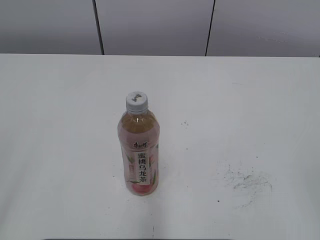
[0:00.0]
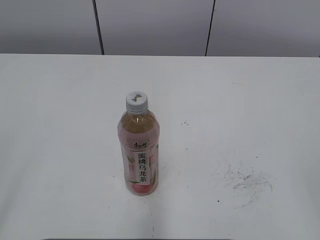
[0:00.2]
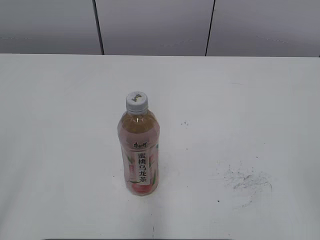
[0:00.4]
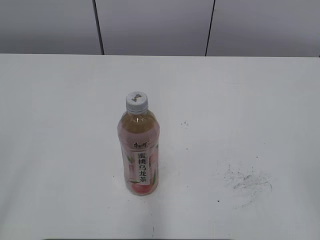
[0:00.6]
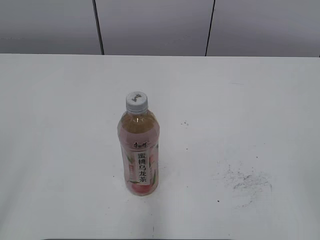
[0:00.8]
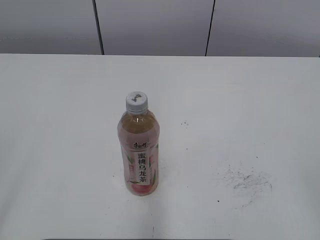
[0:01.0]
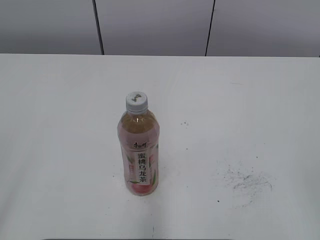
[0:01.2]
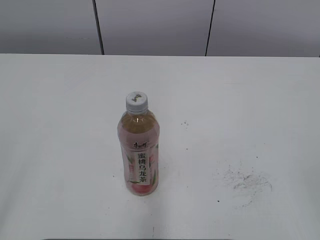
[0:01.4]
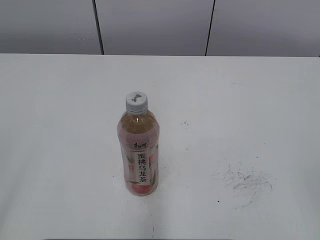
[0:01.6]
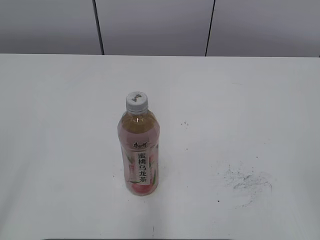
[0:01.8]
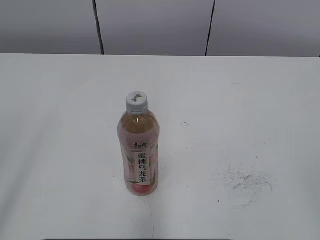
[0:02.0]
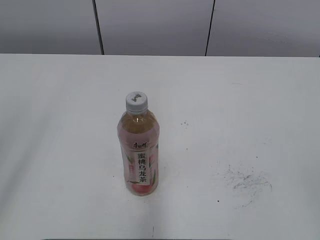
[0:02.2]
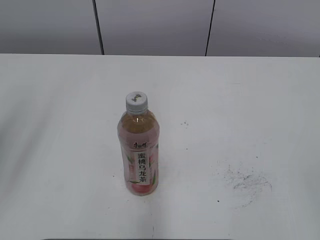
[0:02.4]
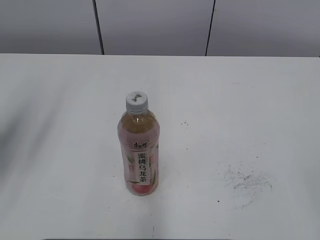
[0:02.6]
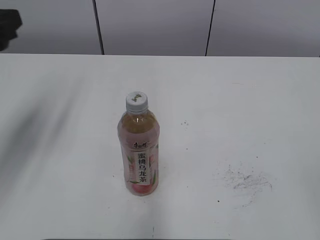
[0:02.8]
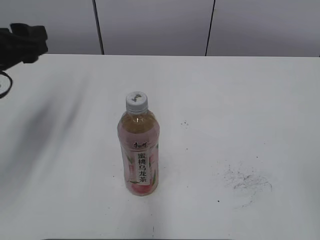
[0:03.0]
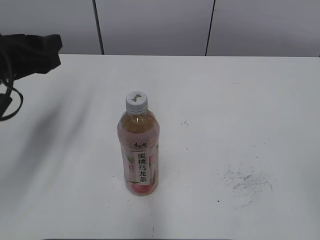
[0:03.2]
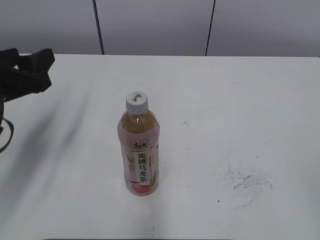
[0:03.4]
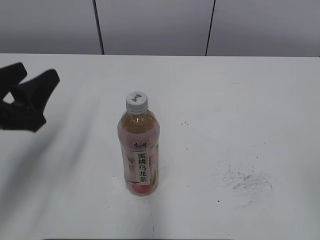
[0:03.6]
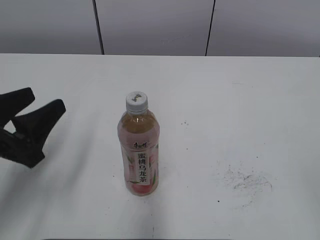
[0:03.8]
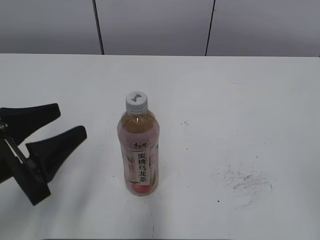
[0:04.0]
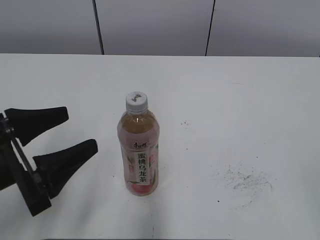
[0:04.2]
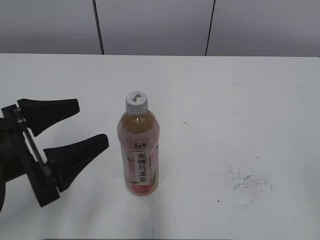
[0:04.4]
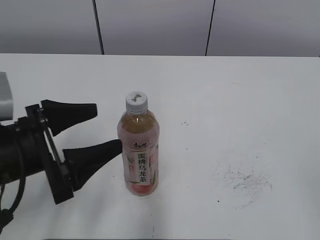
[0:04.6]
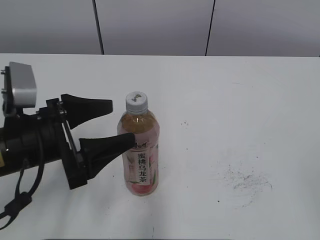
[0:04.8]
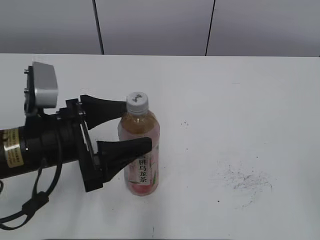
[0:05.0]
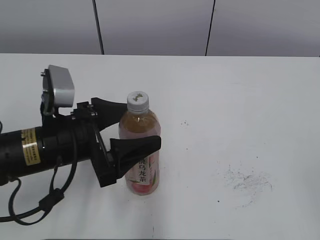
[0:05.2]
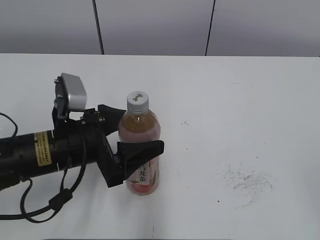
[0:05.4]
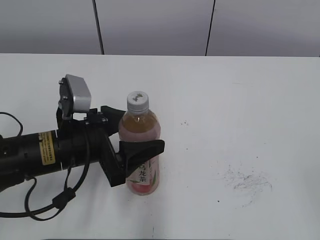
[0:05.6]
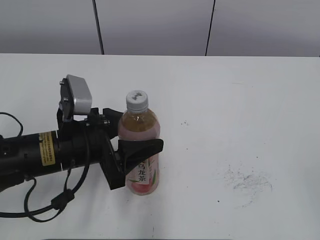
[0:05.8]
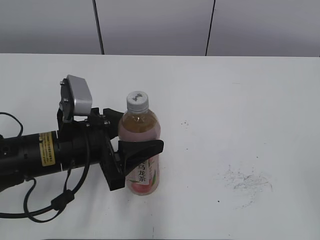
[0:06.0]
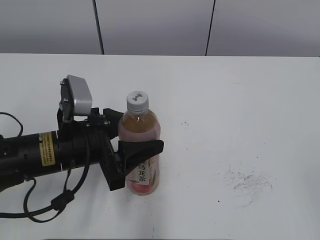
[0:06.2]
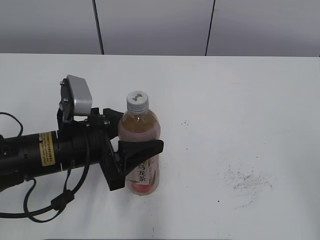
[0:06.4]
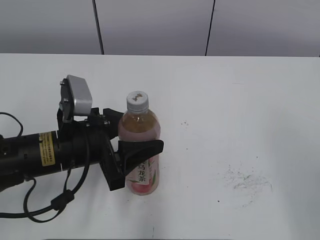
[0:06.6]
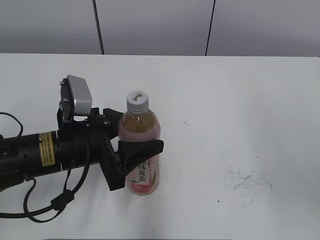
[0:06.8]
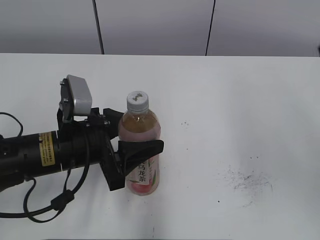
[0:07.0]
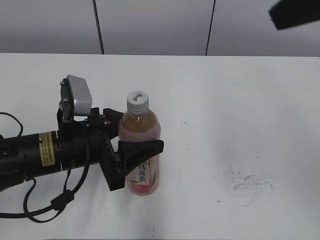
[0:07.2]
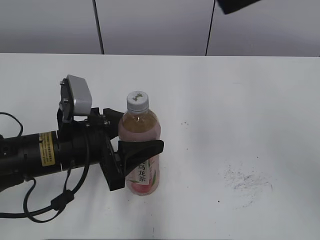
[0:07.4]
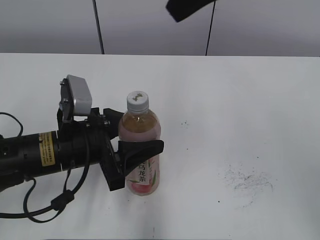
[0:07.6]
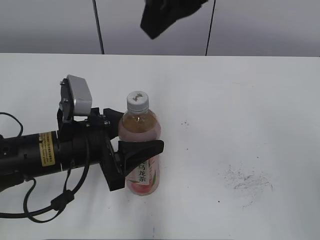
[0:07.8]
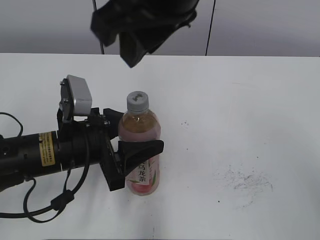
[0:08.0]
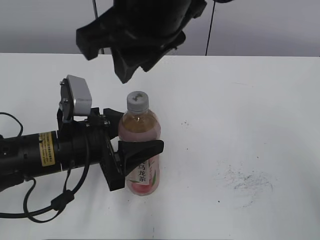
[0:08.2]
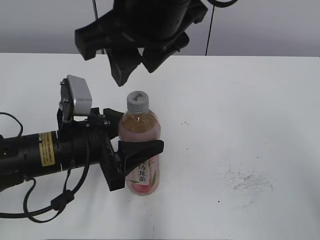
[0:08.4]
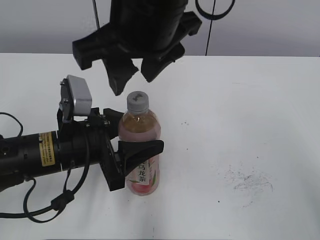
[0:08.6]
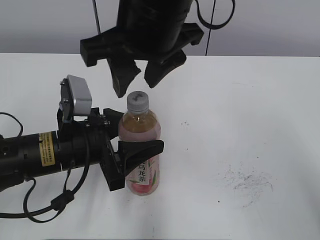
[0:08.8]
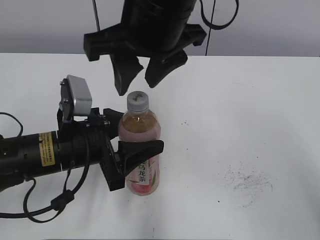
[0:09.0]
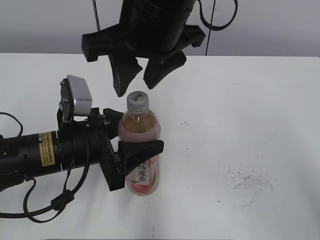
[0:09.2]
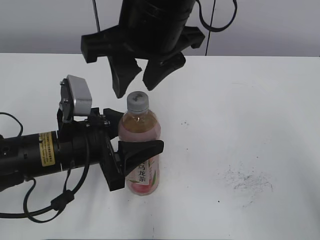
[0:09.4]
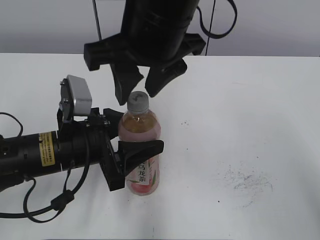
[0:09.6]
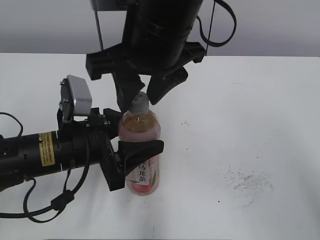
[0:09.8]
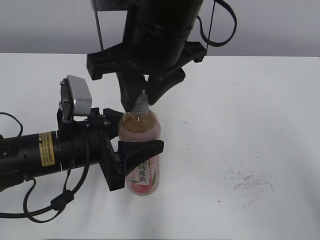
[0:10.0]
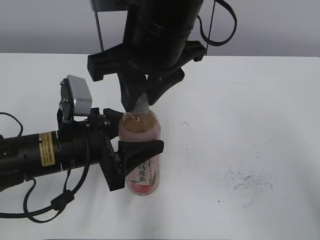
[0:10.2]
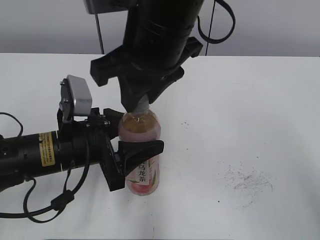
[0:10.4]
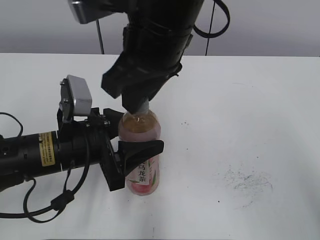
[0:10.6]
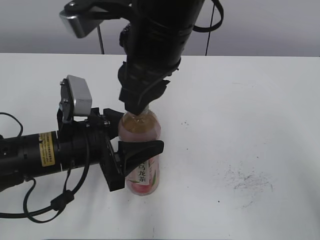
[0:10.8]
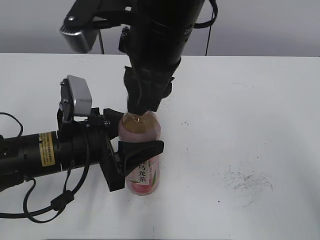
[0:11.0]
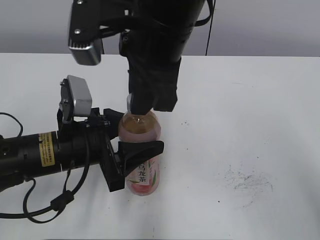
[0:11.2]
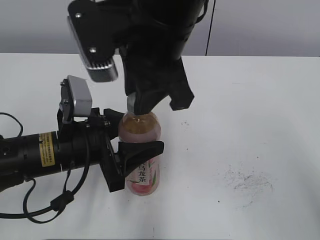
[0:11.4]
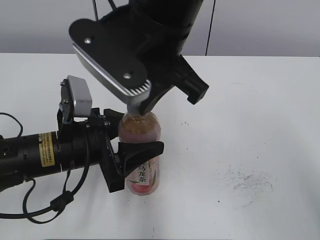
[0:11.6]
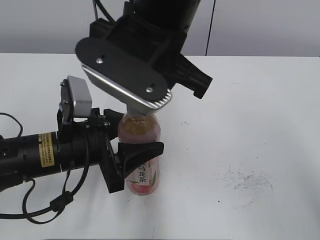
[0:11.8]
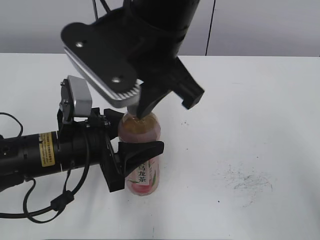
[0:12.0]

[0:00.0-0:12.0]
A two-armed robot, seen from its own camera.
Step, 0:00.0 to 0:05.6: Grab the Peach Oolong Tea with the left hand.
0:01.6 to 0:03.0: The left gripper is displaced forward by approximately 30 cm, and closes.
0:03.0 to 0:04.4: The left gripper shifts roughly 15 cm backward and downward, and opens.
0:04.4 to 0:06.0: The left gripper travels to the right and forward by approximately 10 cm, and closes its fingers.
0:06.0 to 0:07.6: The right gripper travels forward, to the left and upward by roughly 35 cm, and closes up.
0:07.6 to 0:09.0: The right gripper shifts about 15 cm to the left and downward, and opens.
0:09.0 to 0:10.4: The right gripper closes.

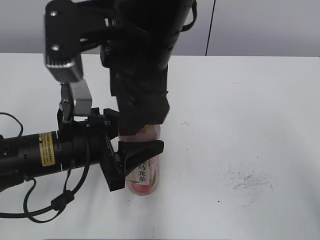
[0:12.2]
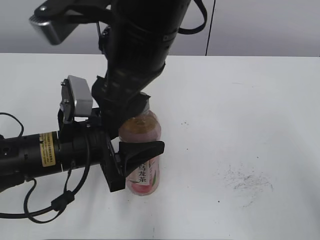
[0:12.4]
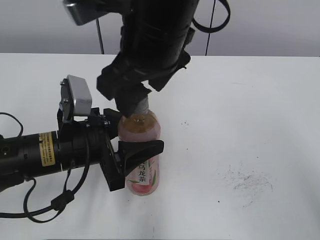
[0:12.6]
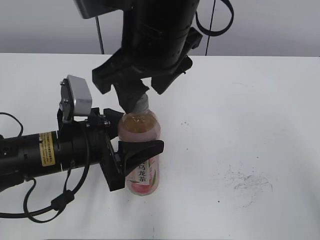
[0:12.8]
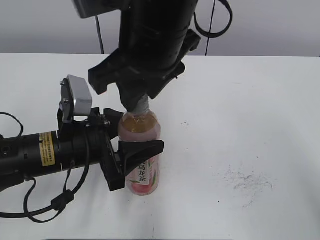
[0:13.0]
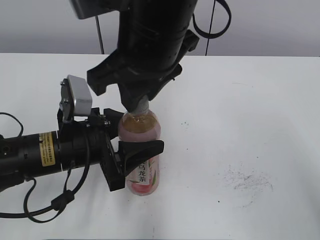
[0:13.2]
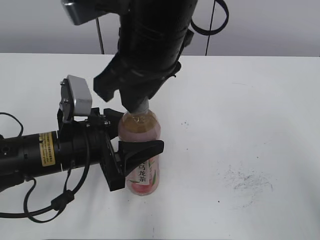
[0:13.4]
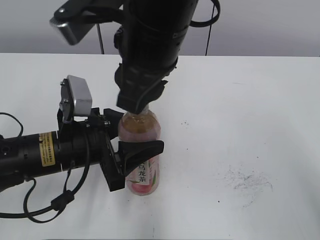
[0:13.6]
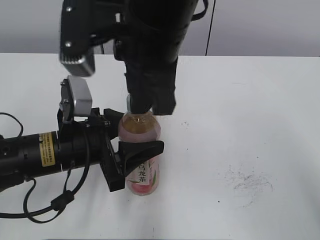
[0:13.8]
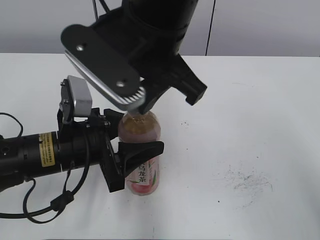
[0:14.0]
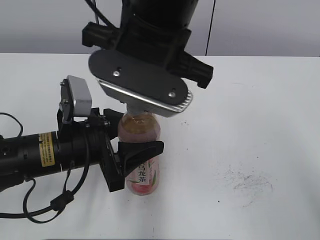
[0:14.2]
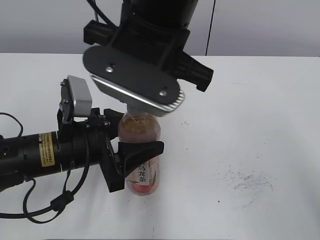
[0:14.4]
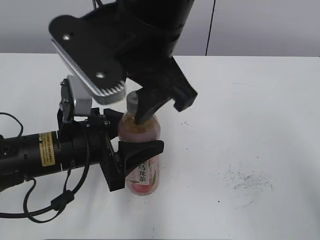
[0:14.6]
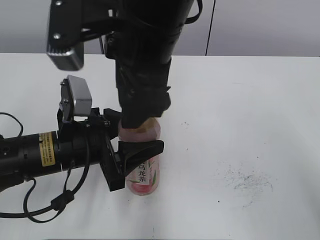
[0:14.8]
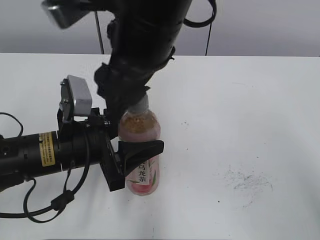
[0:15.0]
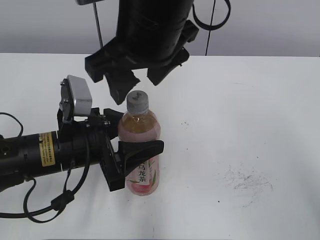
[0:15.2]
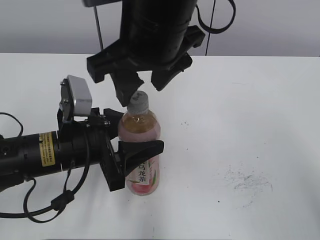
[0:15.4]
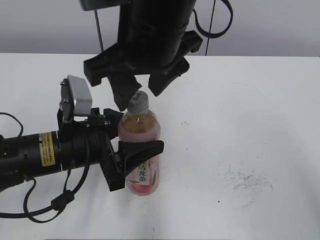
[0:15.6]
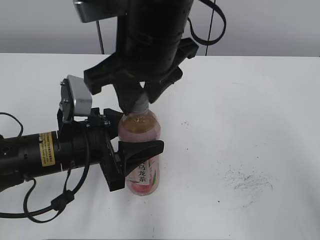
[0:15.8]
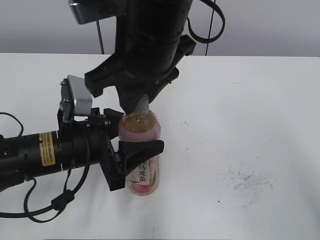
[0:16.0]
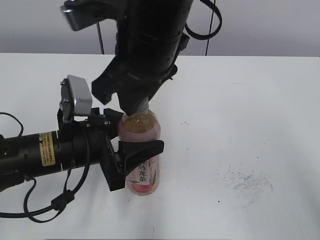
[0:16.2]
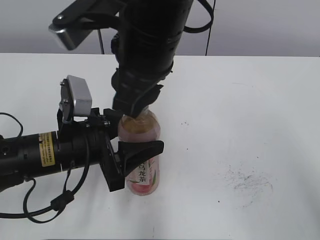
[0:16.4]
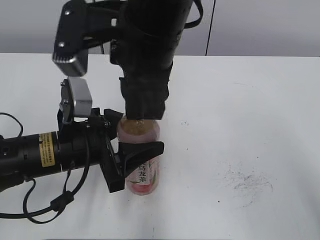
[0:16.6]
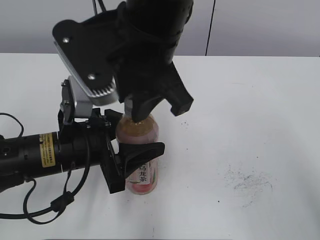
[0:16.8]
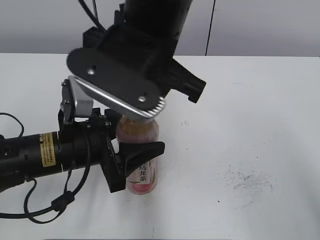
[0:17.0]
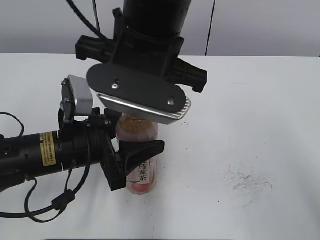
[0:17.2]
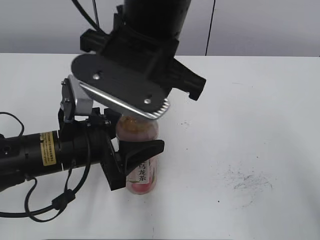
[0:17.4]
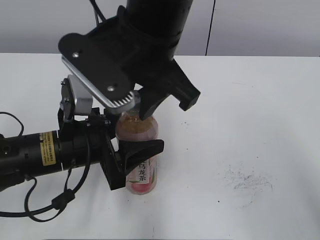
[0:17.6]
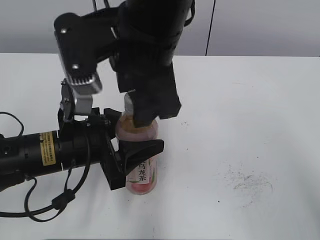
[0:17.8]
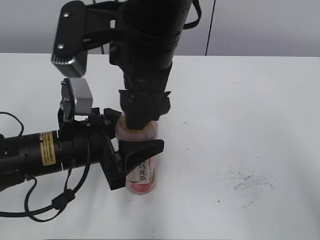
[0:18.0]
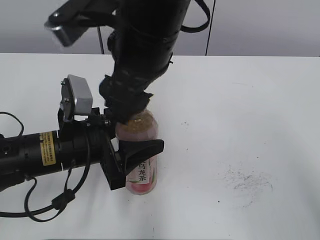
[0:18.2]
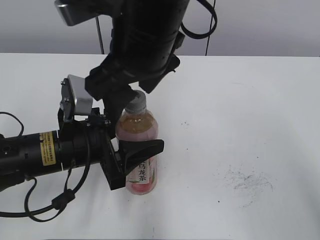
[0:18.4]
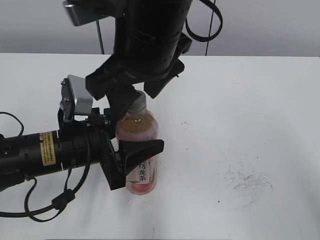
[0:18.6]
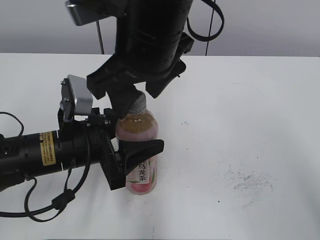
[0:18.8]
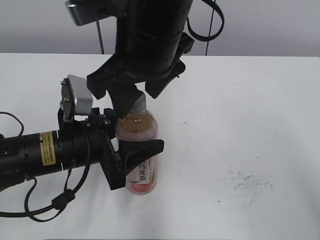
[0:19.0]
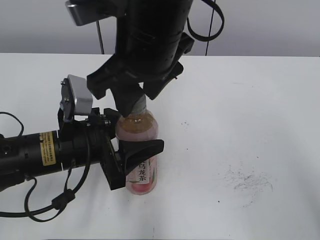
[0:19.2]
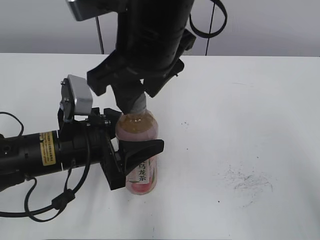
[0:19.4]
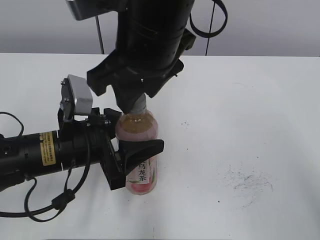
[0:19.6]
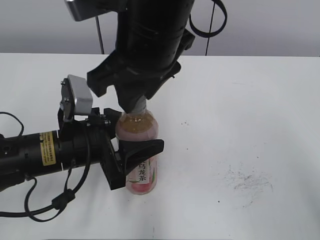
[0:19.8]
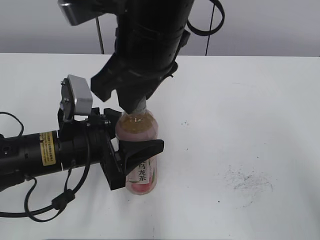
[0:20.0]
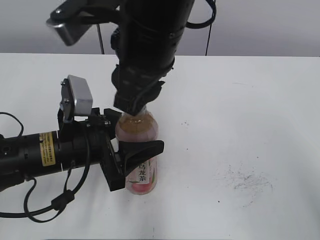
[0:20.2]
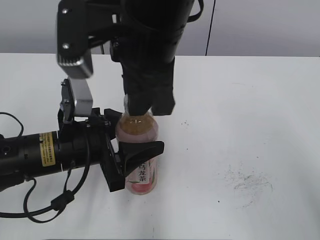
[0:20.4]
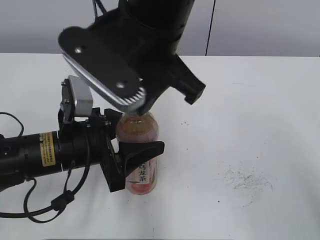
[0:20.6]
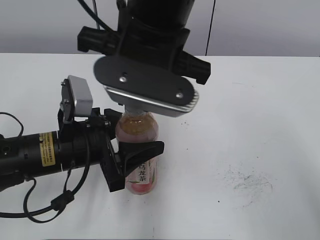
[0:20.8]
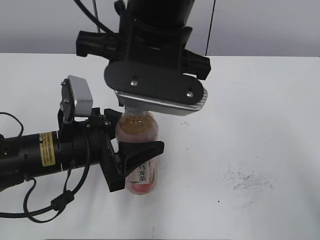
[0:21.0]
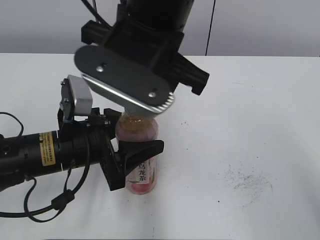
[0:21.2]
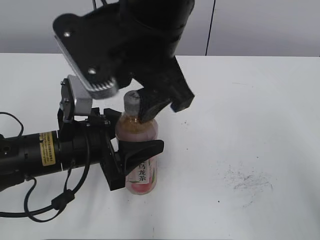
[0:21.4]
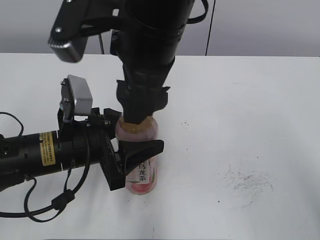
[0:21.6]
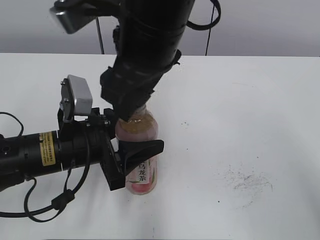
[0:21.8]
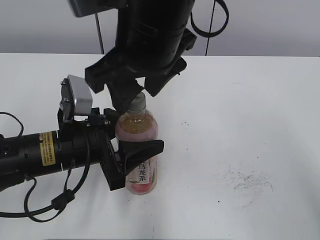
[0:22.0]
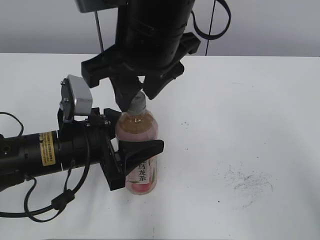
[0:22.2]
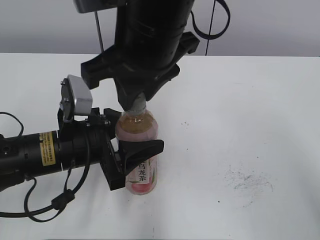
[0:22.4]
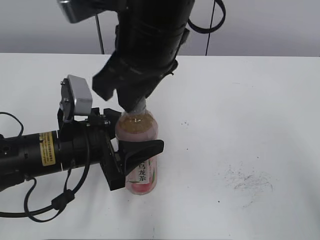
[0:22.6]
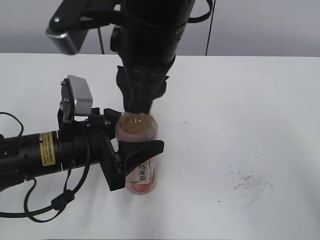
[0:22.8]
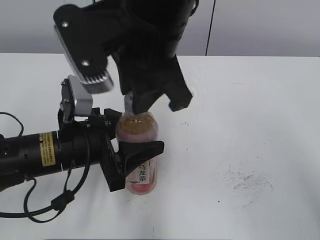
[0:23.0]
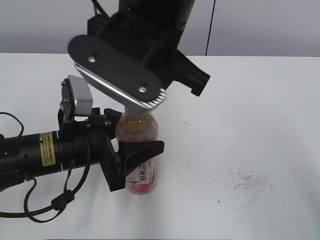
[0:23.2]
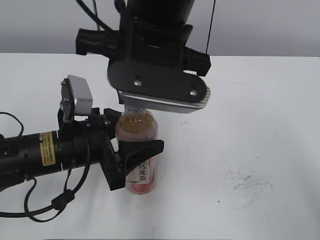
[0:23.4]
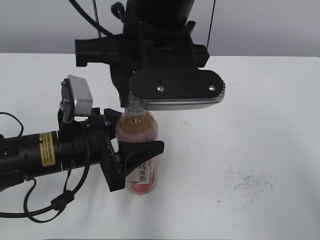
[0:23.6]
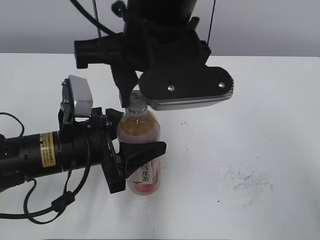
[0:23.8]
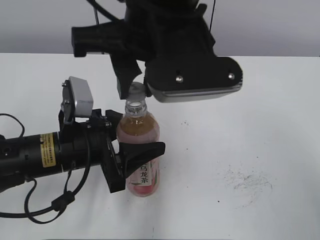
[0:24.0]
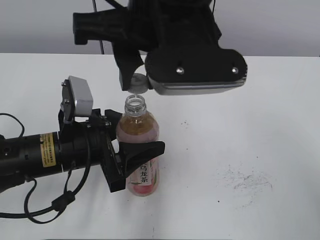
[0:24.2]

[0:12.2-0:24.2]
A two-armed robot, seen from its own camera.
0:12.2 to 0:13.8: The right gripper closes.
0:13.8 to 0:15.2: The right gripper opens up.
0:15.2 to 0:16.6: The right gripper closes its fingers.
0:16.6 to 0:18.2: The right gripper opens its fingers.
0:18.2 to 0:19.8: The right gripper closes up.
0:21.2 to 0:22.6: The right gripper opens and closes again.
